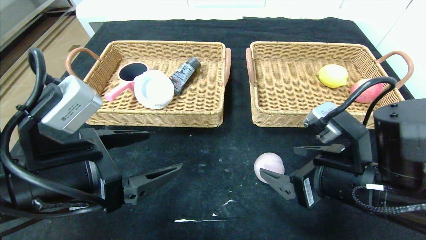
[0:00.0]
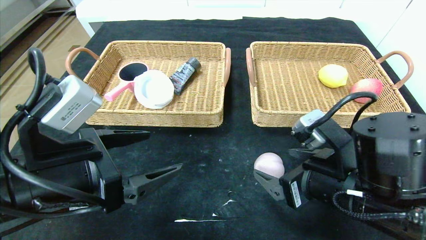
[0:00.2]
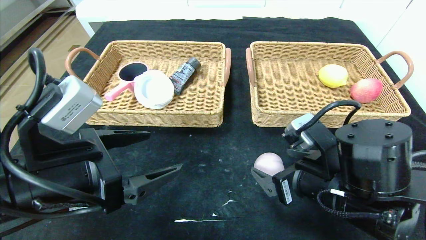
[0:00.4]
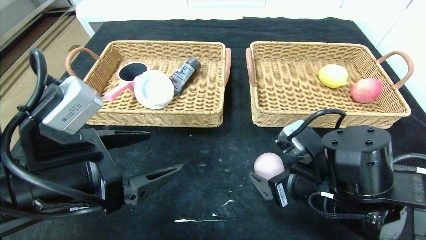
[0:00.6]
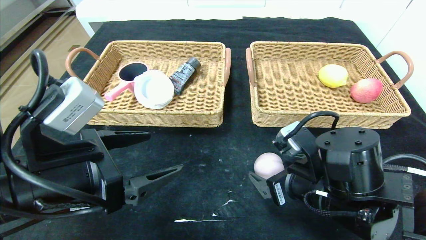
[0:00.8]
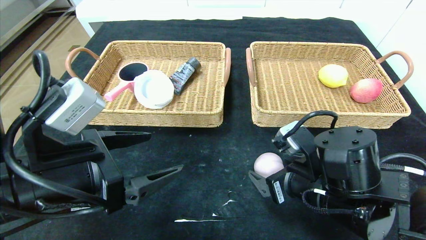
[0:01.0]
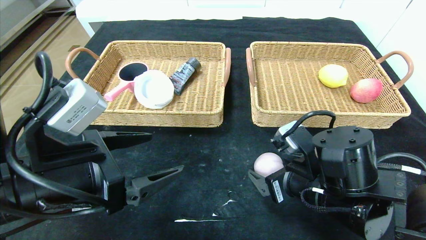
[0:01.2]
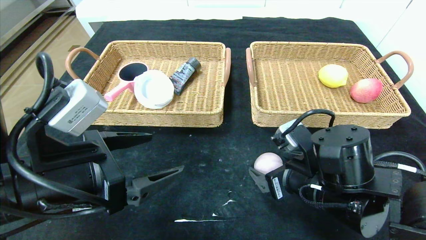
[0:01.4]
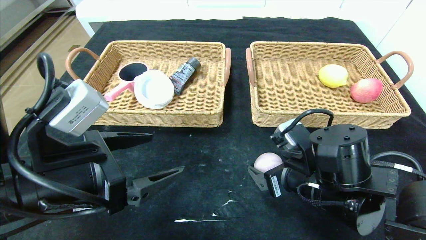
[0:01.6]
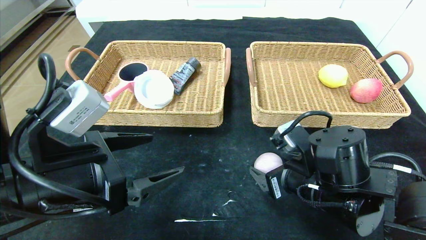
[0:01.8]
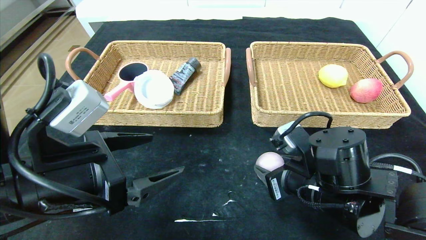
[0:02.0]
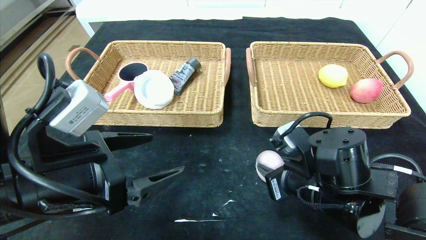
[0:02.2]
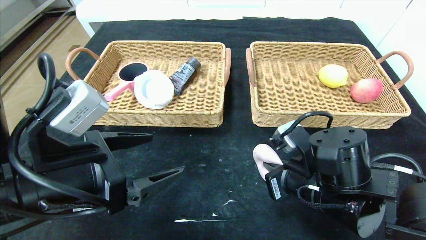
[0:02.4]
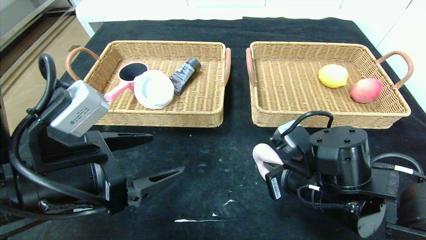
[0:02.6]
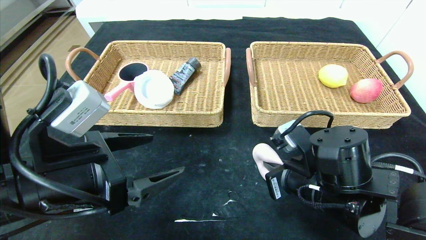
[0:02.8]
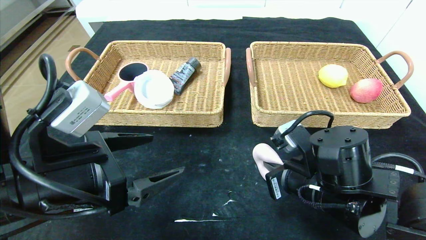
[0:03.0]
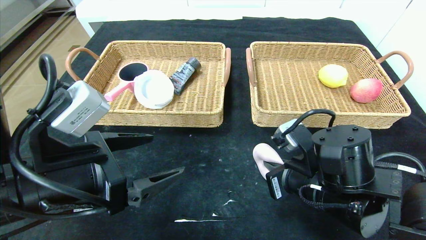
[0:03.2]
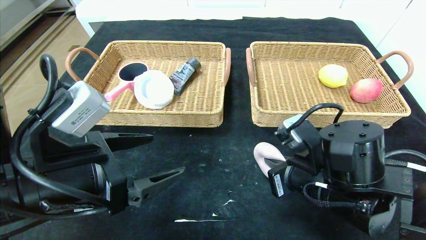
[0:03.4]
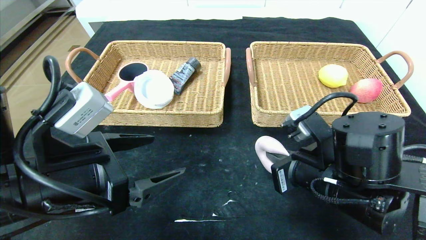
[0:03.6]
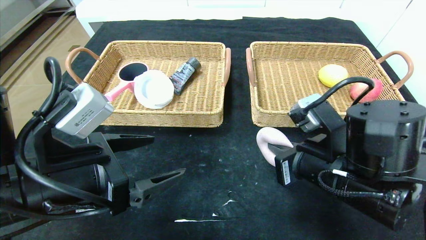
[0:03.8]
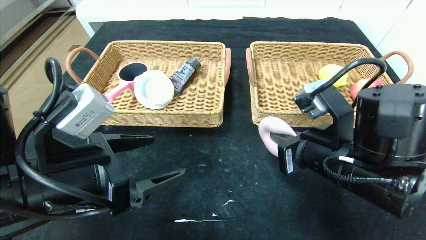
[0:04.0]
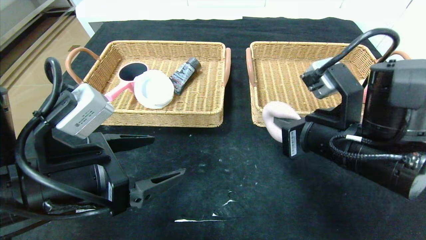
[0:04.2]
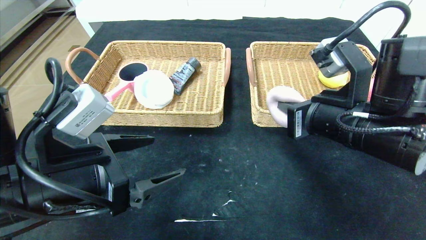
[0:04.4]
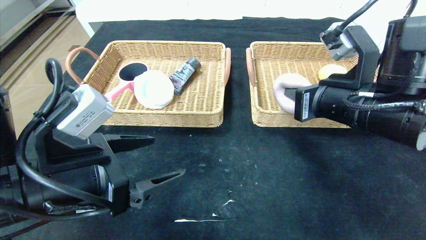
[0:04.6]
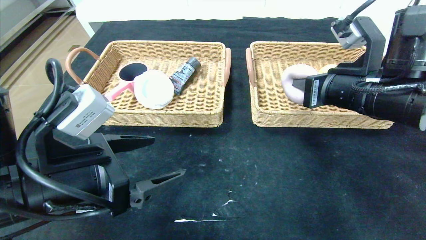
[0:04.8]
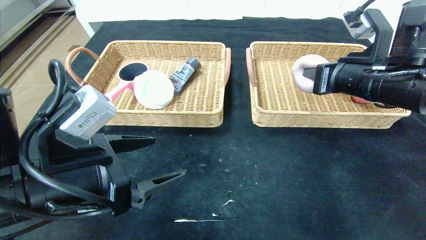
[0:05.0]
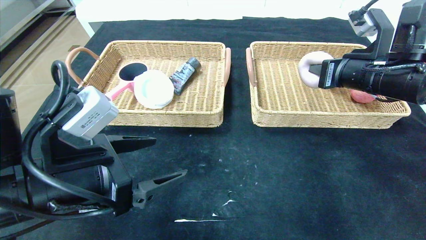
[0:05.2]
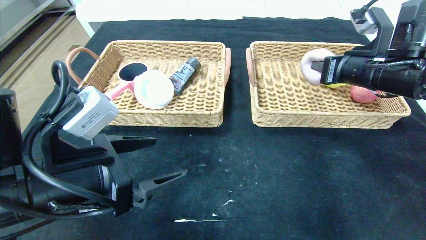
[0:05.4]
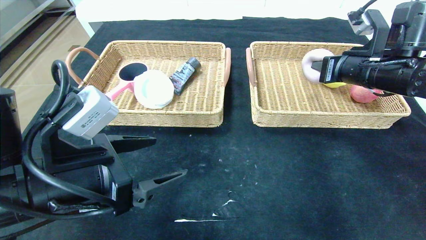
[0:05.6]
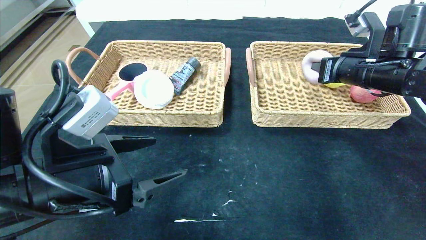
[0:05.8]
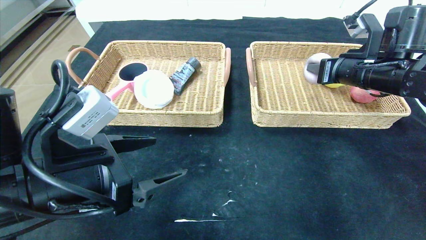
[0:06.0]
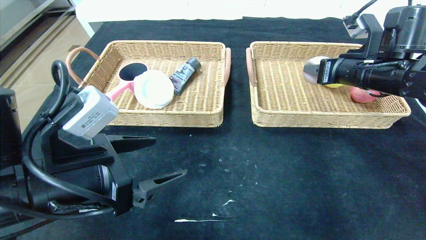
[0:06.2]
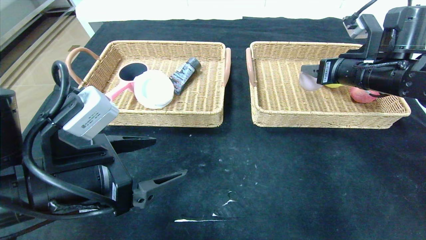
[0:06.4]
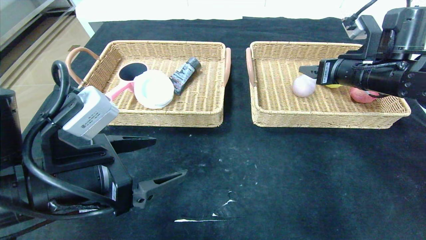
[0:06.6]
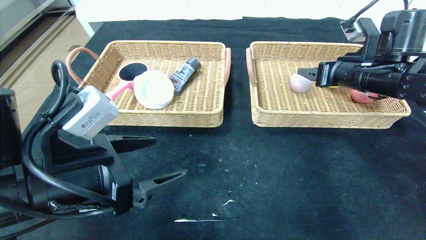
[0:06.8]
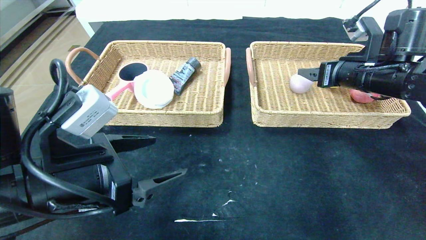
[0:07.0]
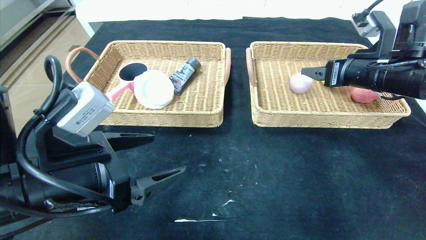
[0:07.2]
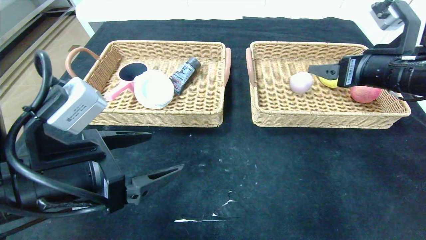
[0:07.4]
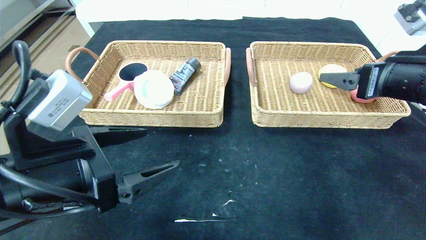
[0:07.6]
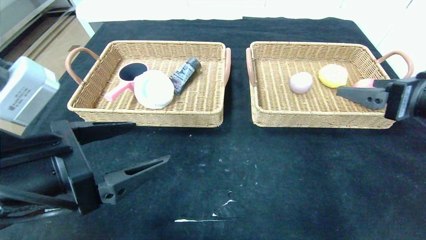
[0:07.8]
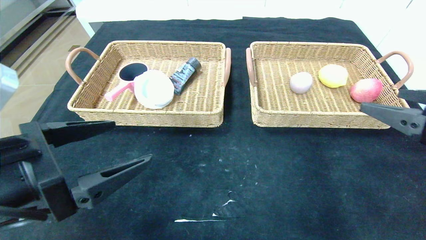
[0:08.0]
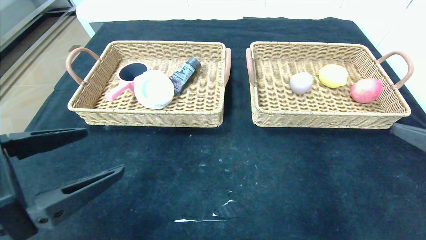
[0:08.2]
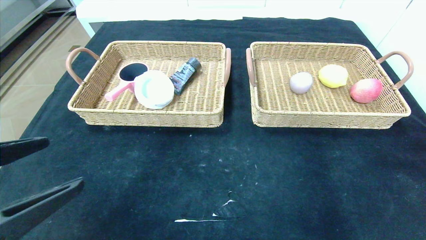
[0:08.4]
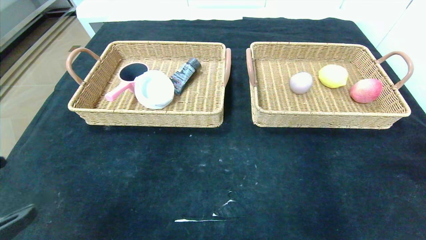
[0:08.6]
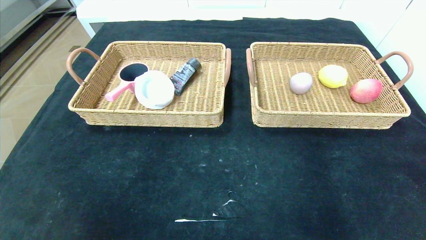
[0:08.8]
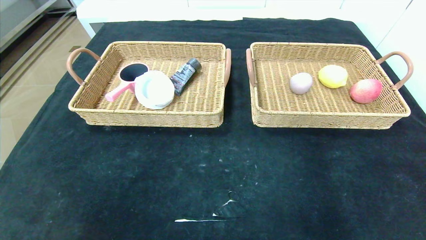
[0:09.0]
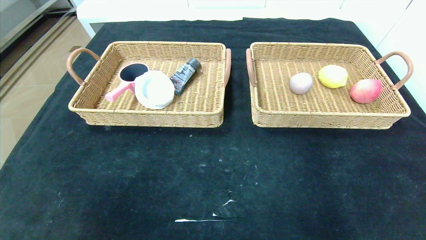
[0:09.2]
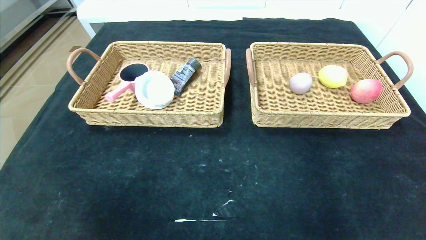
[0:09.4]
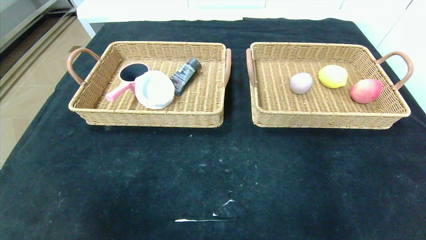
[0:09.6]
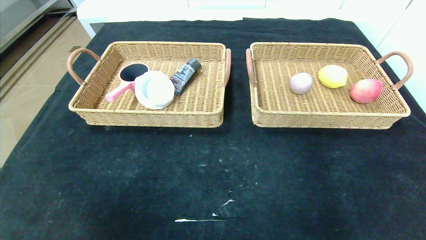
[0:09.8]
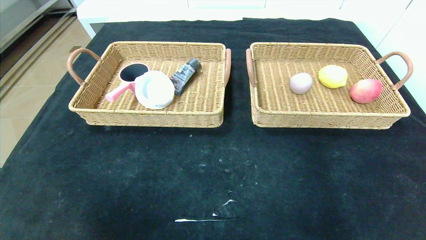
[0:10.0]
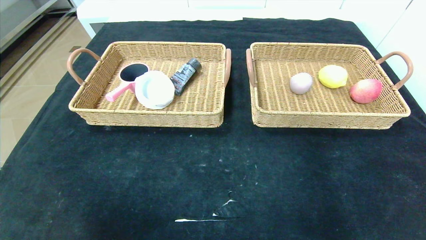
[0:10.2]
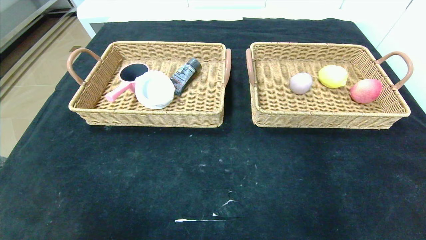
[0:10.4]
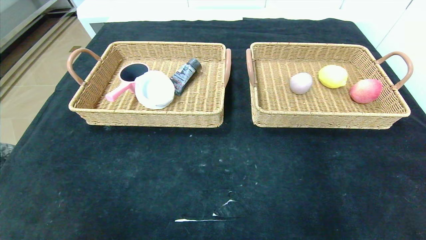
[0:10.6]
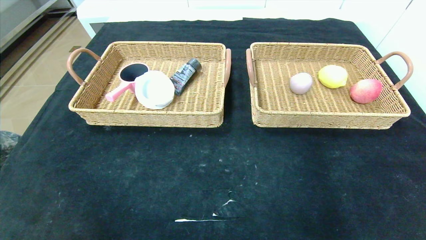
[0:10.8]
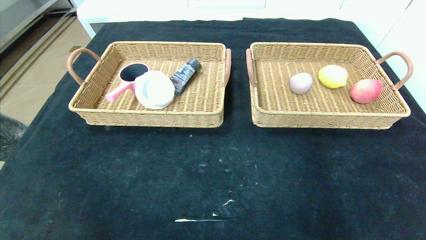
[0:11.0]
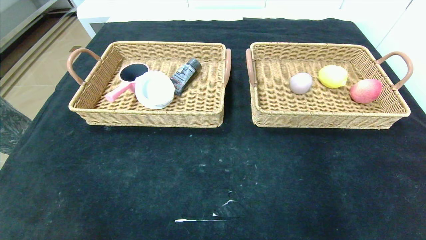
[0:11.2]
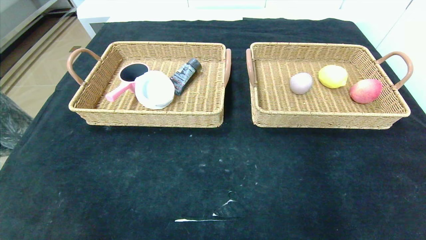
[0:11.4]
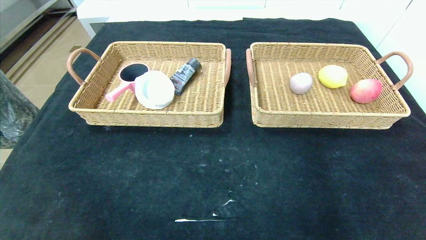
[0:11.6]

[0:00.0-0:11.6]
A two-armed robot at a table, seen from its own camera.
Step, 0:00.0 to 0:08.2: Pick up the peach and put it in the right basket.
0:00.0 to 0:01.4: The right gripper ends up roughly 5 cm from where it was.
0:01.4 to 0:02.8: The right gripper closes.
0:02.8 to 0:04.4: The right gripper heads upward, covering roughly 10 cm.
0:04.4 to 0:05.8: The right gripper travels forward and to the right by roughly 15 cm.
0:05.8 to 0:07.2: The right gripper opens.
0:07.2 to 0:08.8: The right gripper shifts roughly 35 cm backward. Meanwhile the left gripper shifts about 20 cm backward and to the left.
0:08.8 to 0:10.2: The left gripper shifts about 10 cm downward and backward.
0:10.2 to 0:11.6: The left gripper heads downward, covering roughly 10 cm.

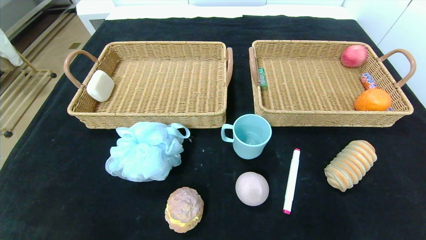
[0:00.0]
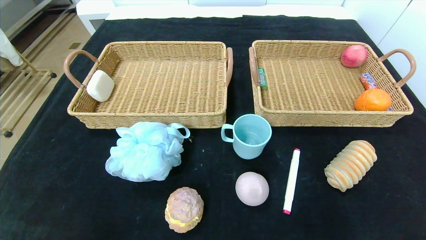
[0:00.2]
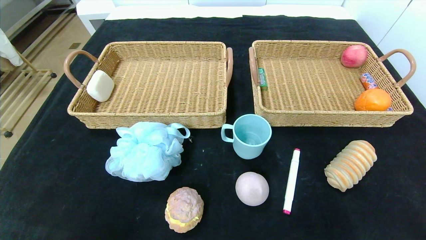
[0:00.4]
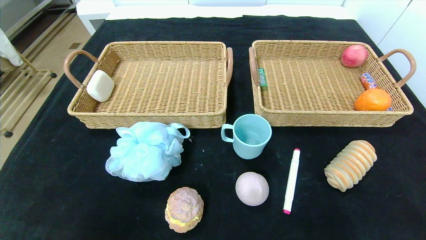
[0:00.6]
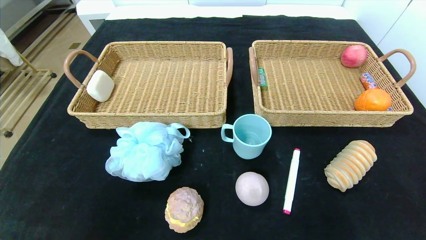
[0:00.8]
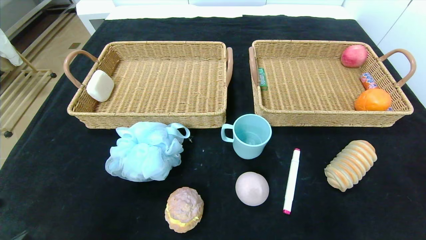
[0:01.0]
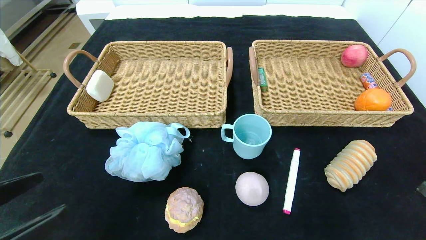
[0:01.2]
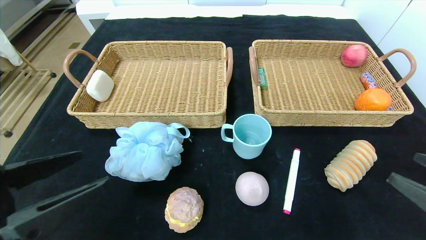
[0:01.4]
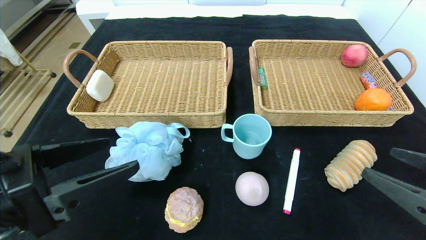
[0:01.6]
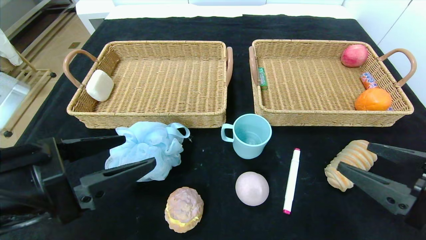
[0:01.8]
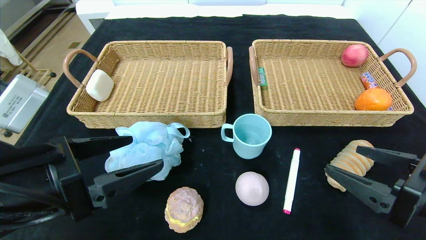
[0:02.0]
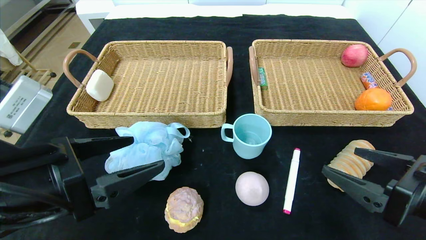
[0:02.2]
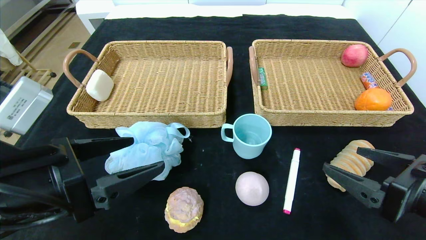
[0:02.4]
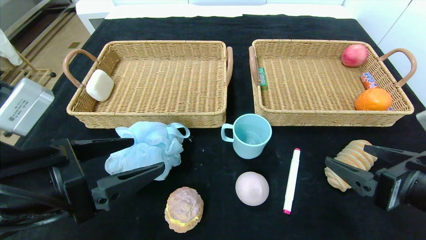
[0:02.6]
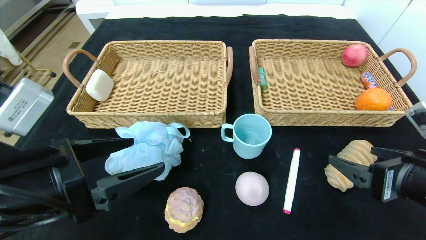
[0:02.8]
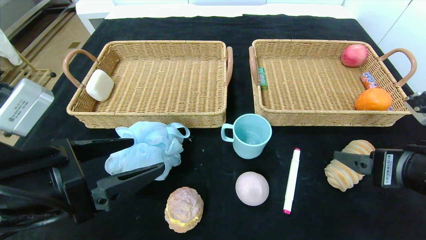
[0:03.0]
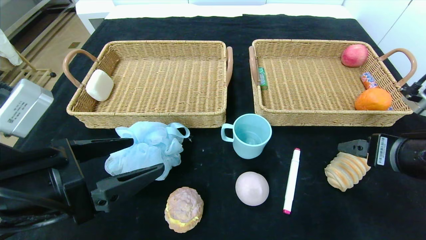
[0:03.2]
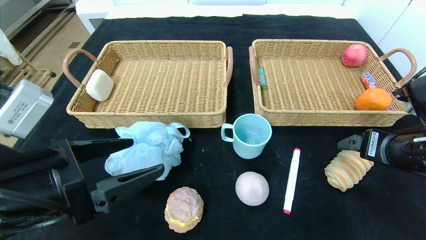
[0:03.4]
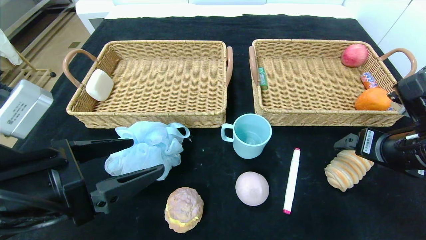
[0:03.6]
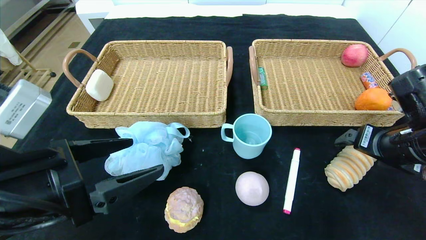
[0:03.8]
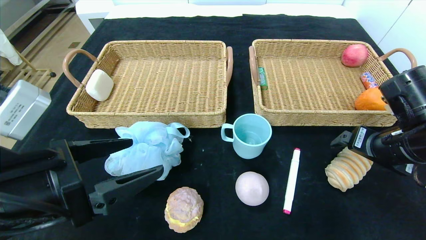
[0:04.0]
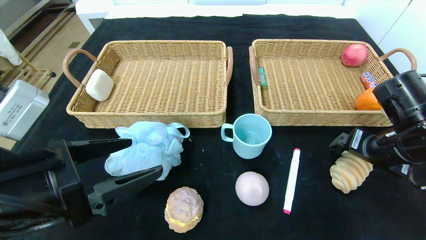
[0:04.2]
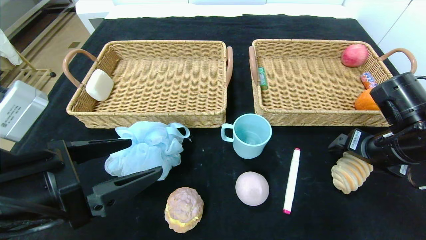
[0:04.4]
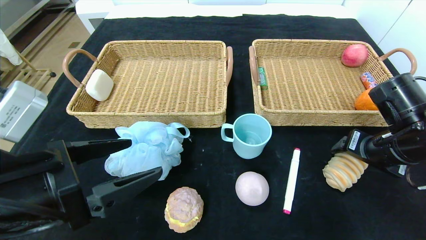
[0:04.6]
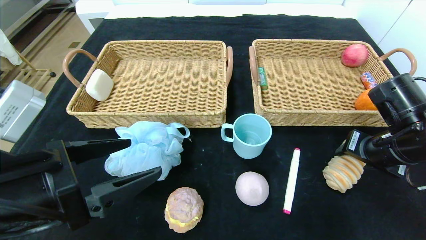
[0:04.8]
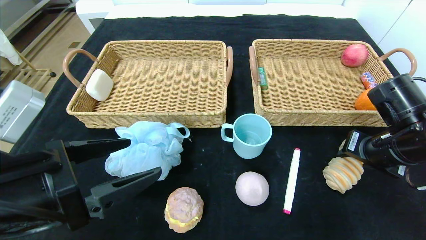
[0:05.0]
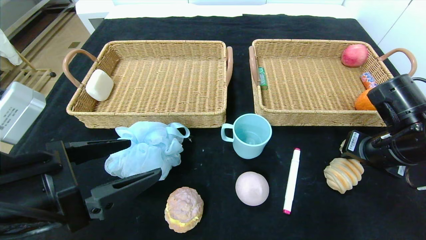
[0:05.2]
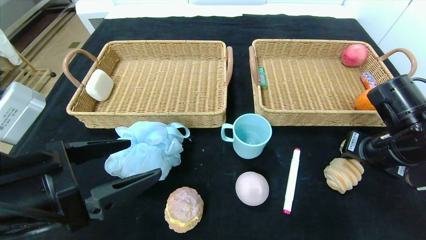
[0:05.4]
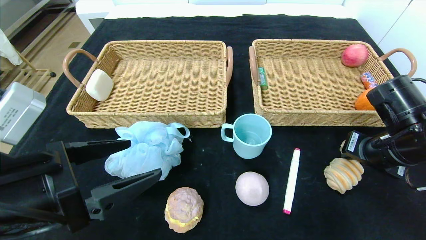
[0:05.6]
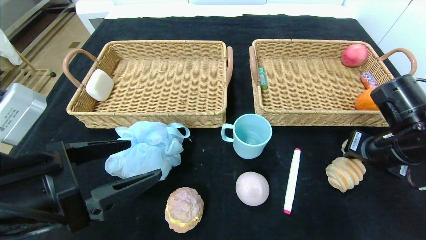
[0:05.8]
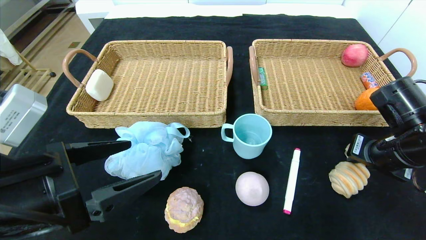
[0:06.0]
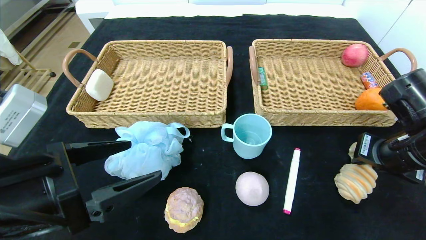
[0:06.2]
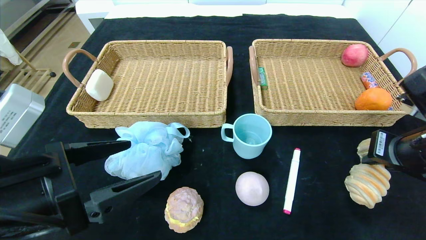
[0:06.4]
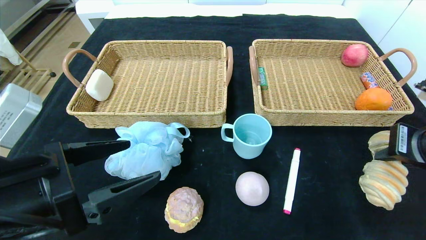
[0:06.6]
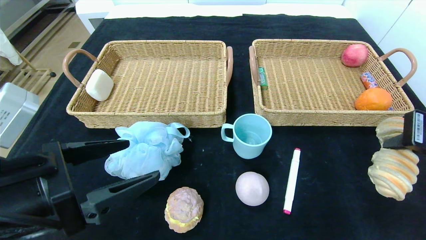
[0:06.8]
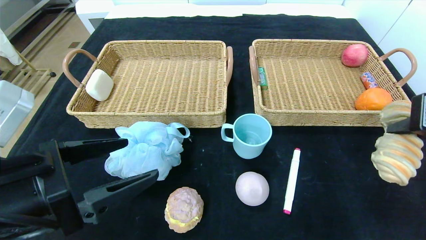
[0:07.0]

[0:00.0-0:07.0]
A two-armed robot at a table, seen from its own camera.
0:00.0 to 0:01.4: Both grippers travel together upward and forward, about 20 cm.
0:01.4 to 0:02.8: The right gripper goes some 10 cm forward and to the left. The left gripper moves approximately 5 cm.
0:02.8 to 0:04.2: The right gripper moves forward, approximately 10 cm.
0:04.2 to 0:05.6: The right gripper closes.
0:05.6 to 0:07.0: The right gripper goes some 15 cm upward and backward.
